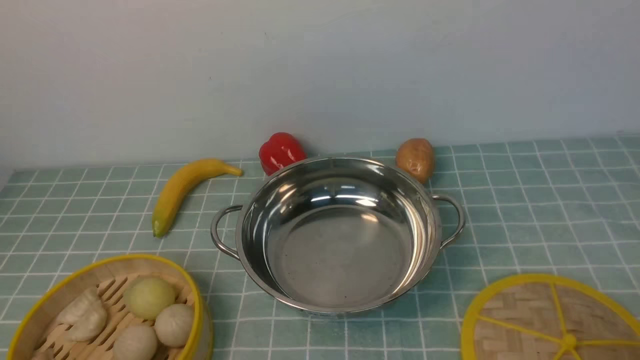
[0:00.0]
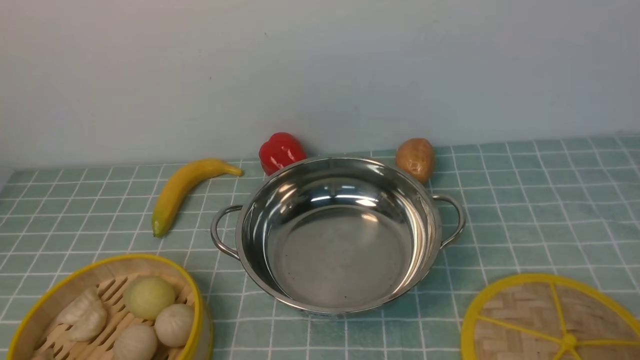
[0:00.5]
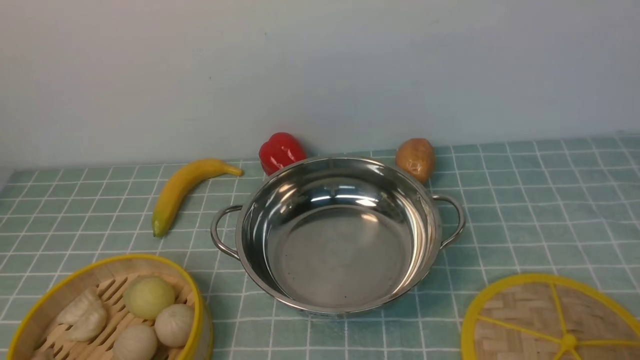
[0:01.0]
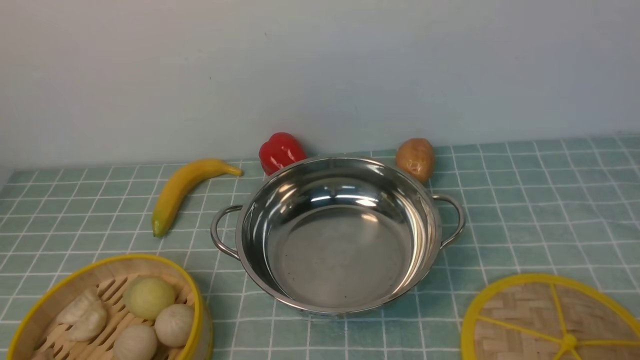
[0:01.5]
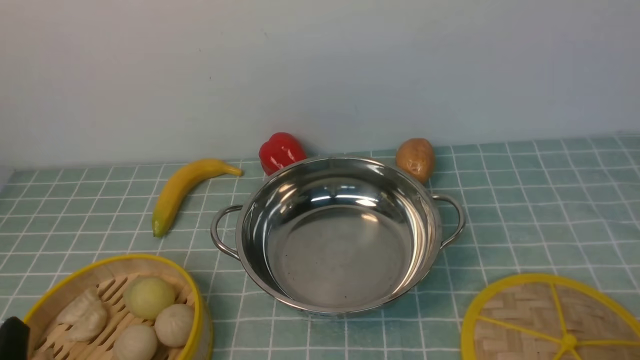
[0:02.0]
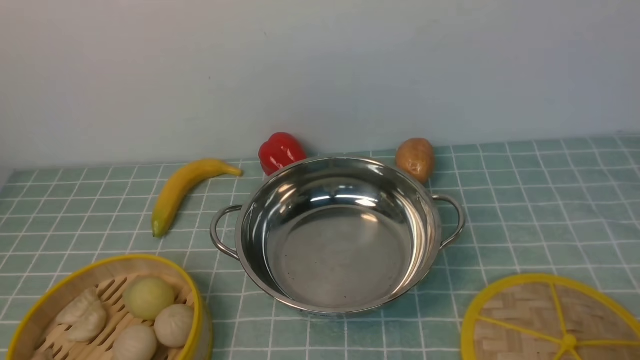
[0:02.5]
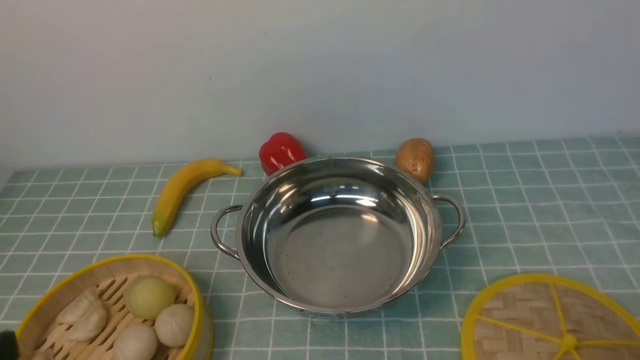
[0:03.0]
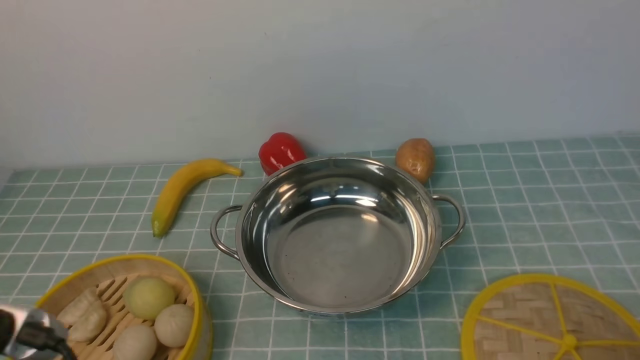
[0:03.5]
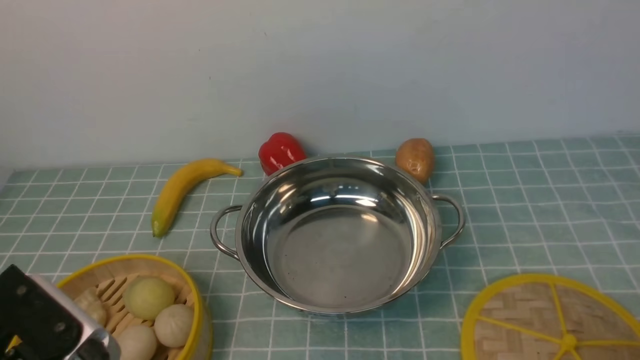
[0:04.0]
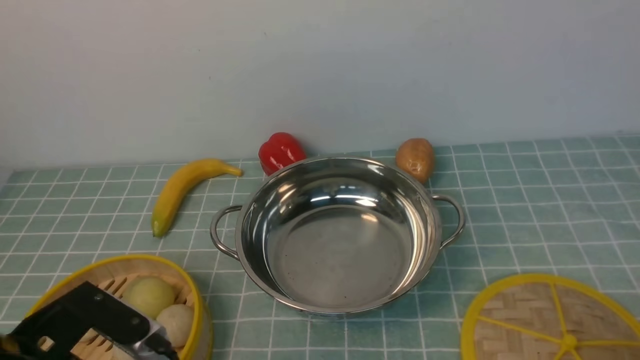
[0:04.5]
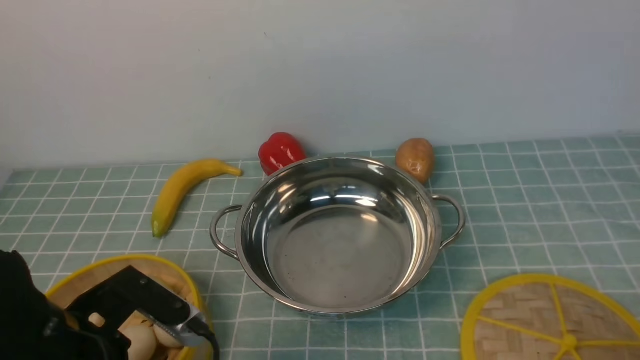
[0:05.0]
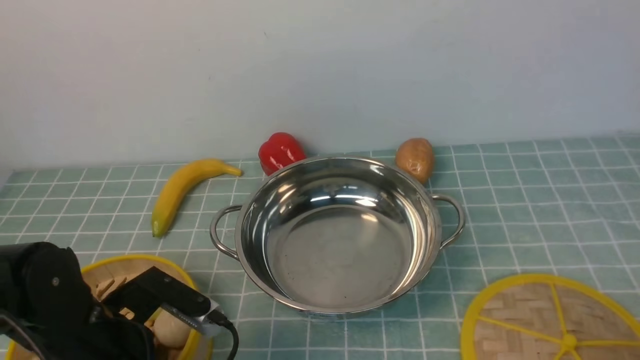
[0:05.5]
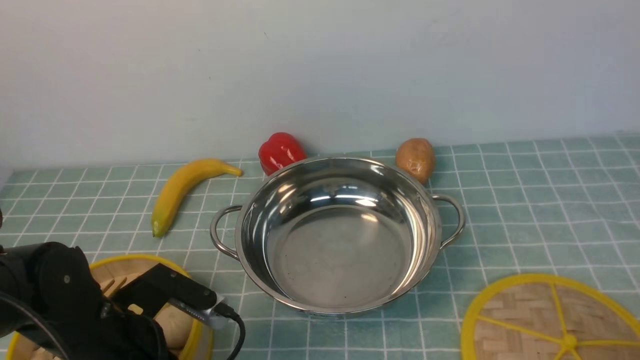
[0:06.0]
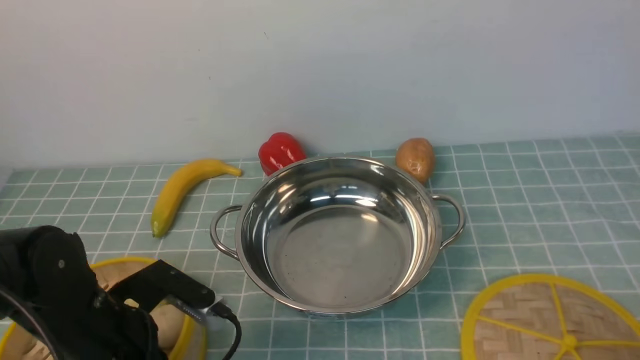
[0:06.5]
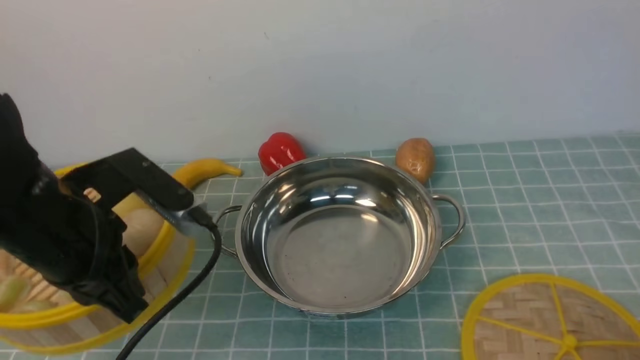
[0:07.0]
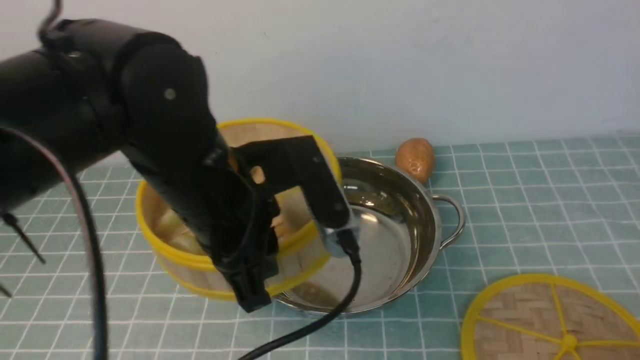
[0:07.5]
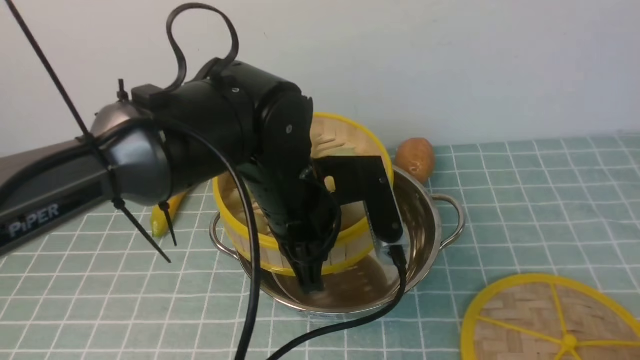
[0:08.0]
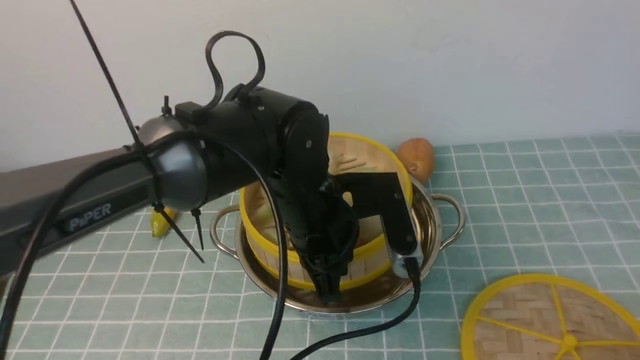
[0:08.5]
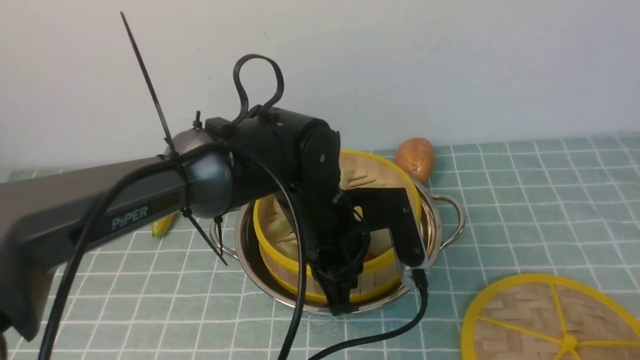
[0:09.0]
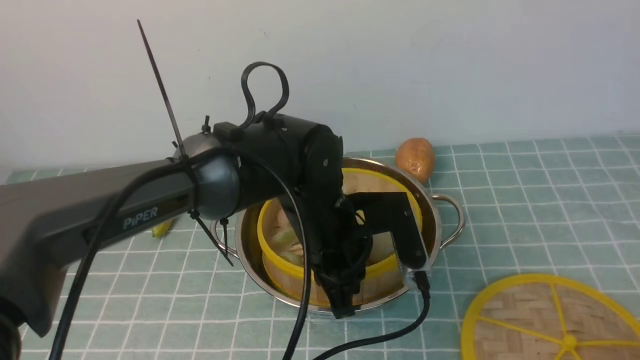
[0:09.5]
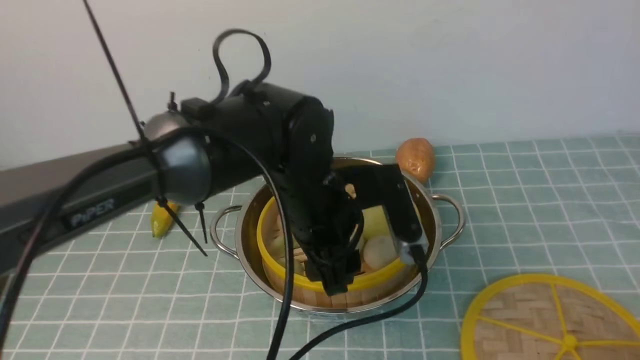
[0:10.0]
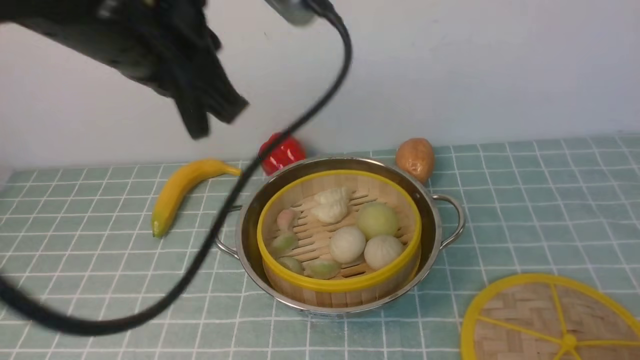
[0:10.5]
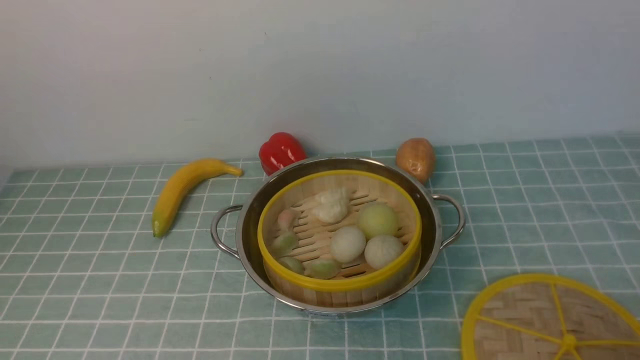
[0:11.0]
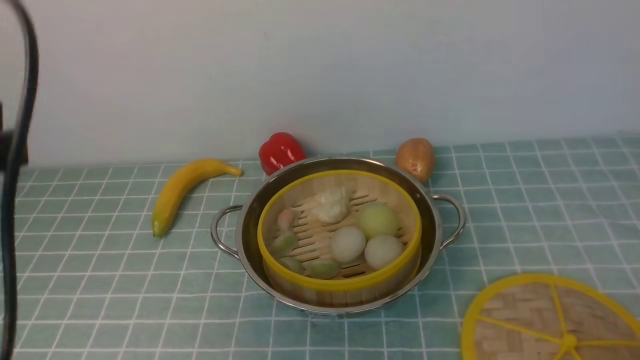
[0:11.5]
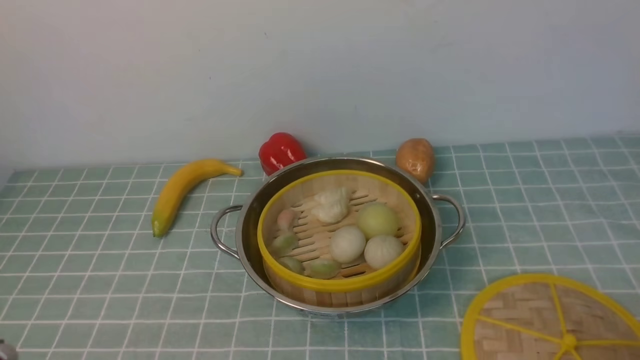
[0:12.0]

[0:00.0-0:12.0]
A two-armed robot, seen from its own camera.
Task of the whole recording: place the steamer in the pot on the blue tablecloth, and put the lid on the steamer.
Step, 0:00.0 to 0:07.0: use the left arm to lift the steamer closest to it.
Step, 0:07.5 to 0:10.0: use the left arm to put the steamer into the iron steamer pot in the middle.
0:02.0 to 0:04.0: The left gripper moves upward, about 10 cm.
0:04.0 to 0:06.0: The left gripper goes approximately 15 cm downward and forward, and closes its fingers.
0:06.0 to 0:08.0: The left gripper goes approximately 20 cm to the right, upward and forward, and closes its fingers.
0:08.0 to 0:10.0: The left gripper opens up.
0:10.0 to 0:12.0: The left gripper shifts approximately 35 cm to the left and backward, goes upward and returns, about 30 cm each way, and closes its fingers.

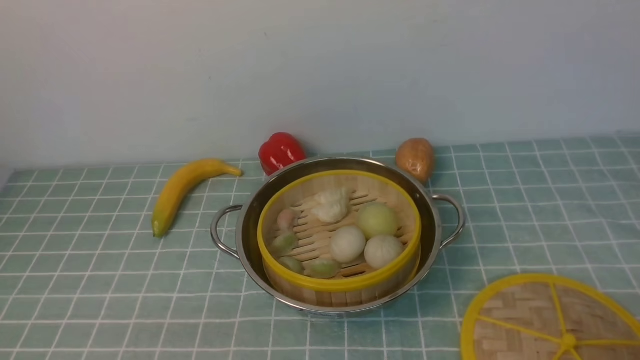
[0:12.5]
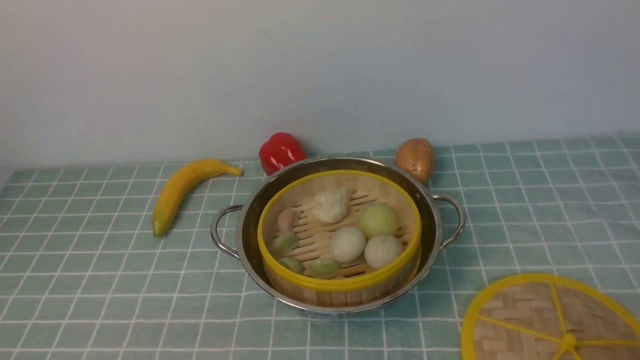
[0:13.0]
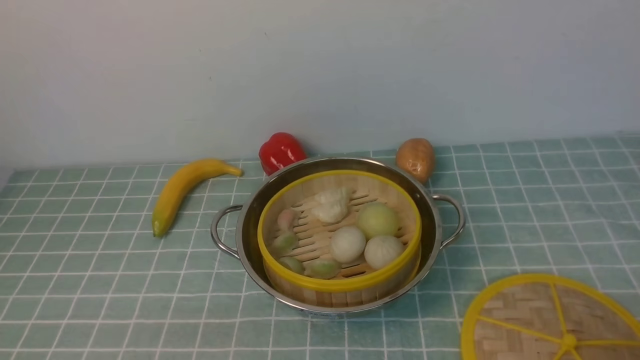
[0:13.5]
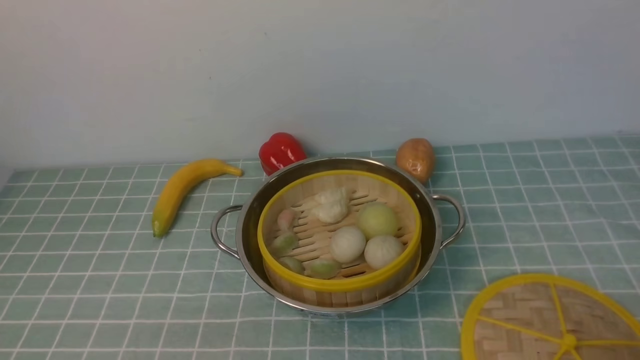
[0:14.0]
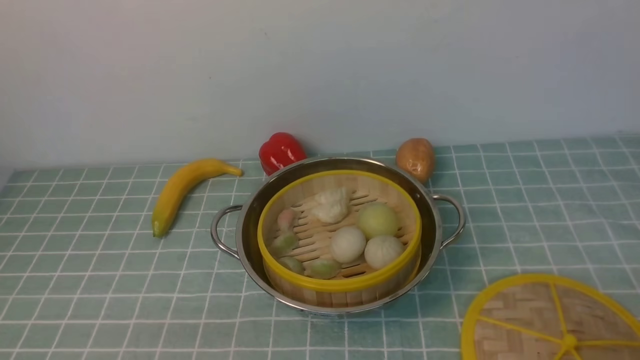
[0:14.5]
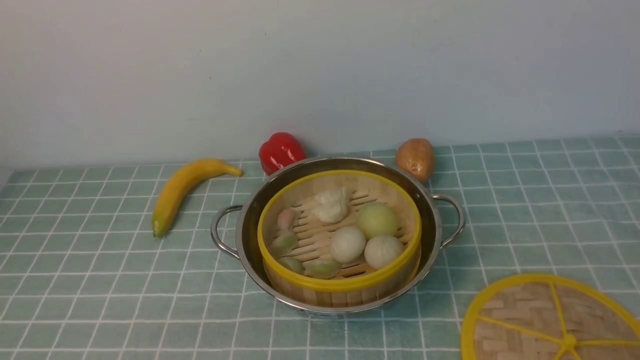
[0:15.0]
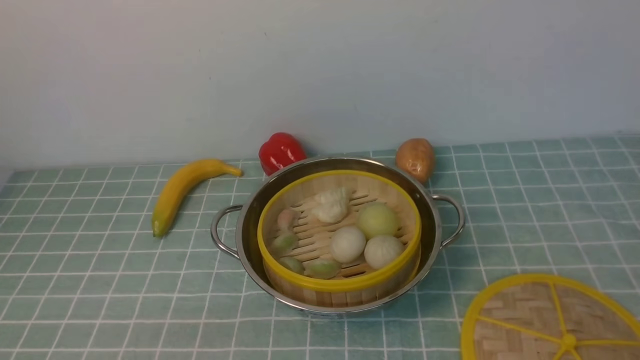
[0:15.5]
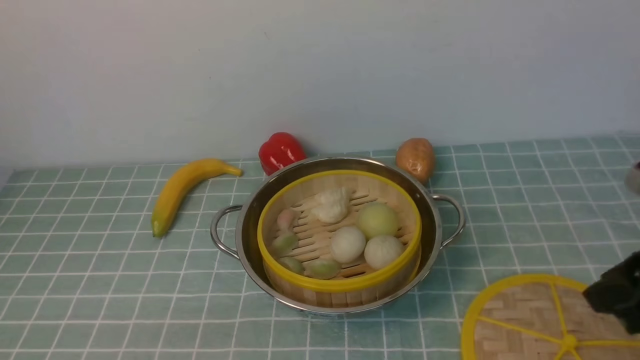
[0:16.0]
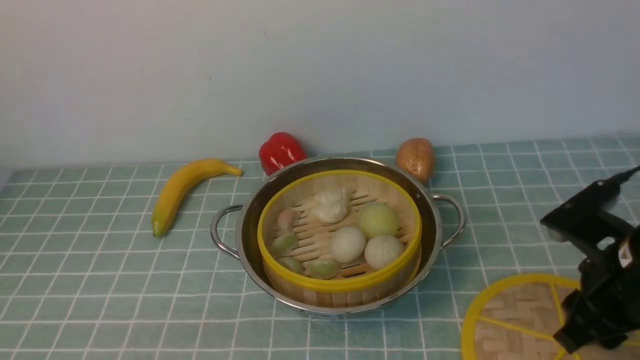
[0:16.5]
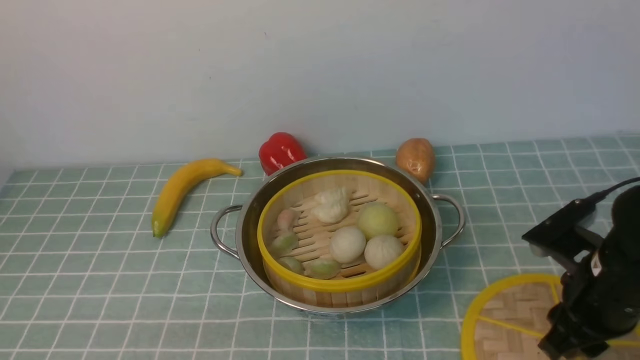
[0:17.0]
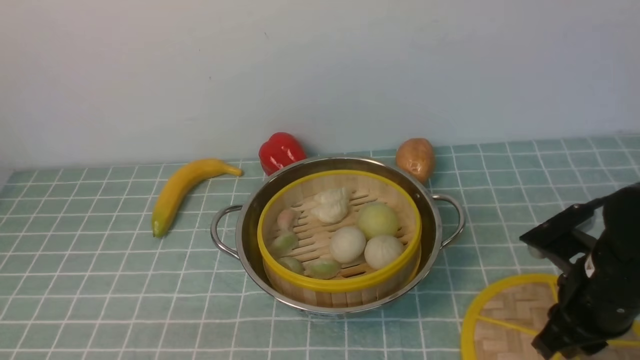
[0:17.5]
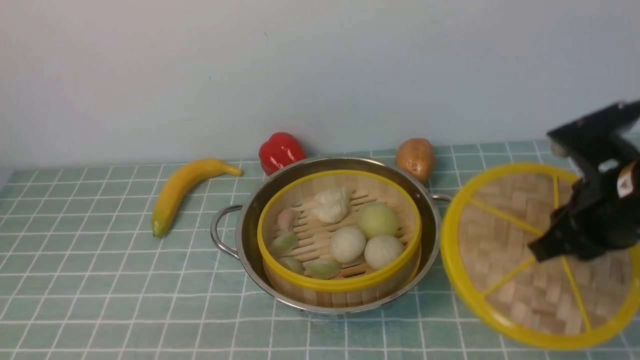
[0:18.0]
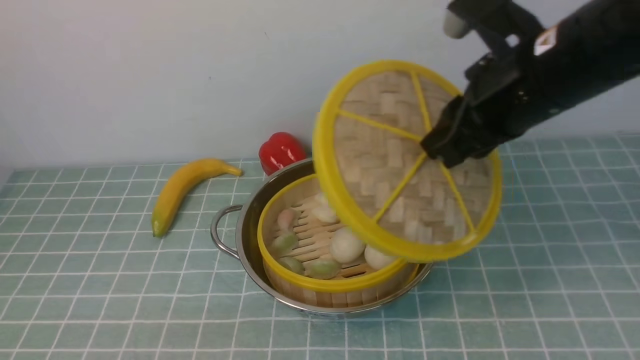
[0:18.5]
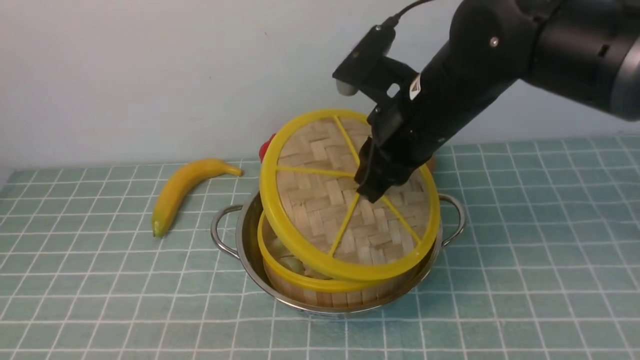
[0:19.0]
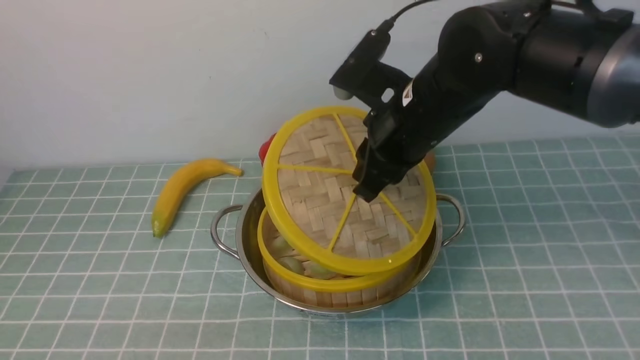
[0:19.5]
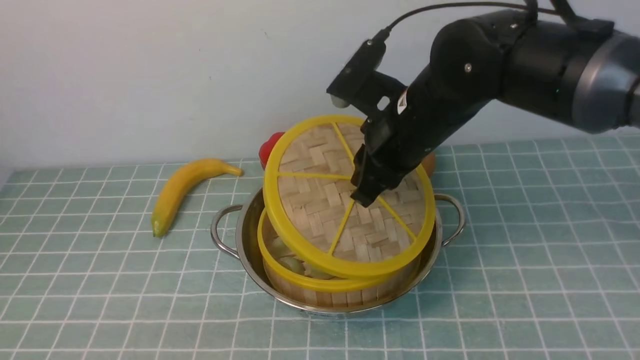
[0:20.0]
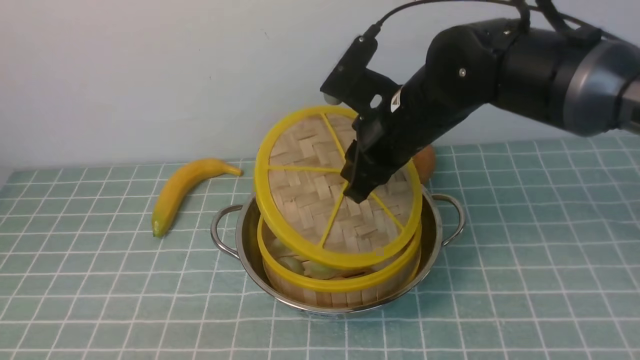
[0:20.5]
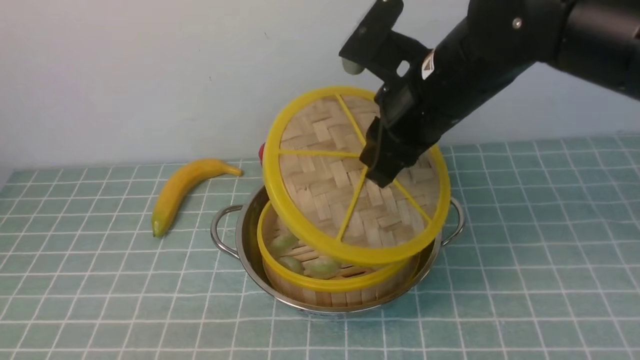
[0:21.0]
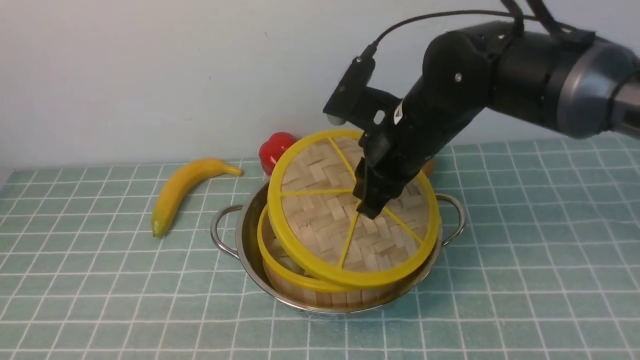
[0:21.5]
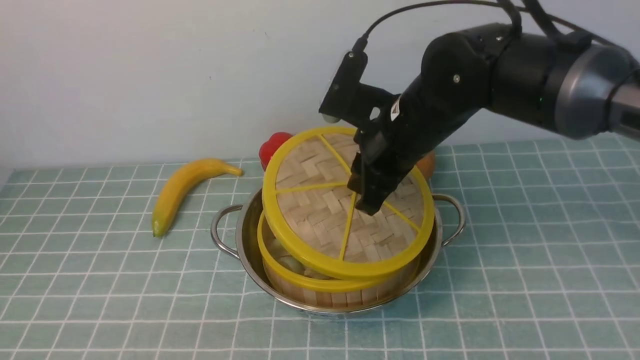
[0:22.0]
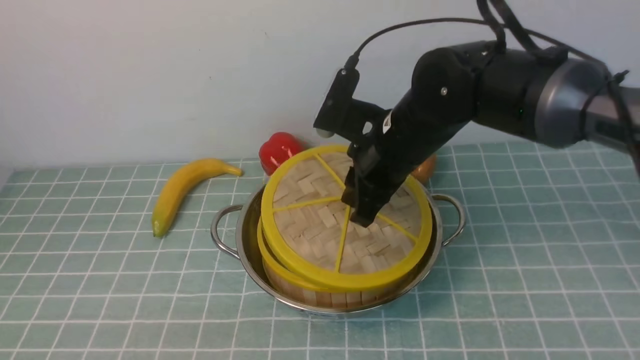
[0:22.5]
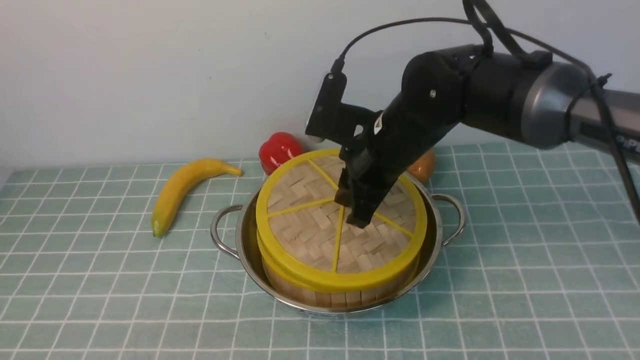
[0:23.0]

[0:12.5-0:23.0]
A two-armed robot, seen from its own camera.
Task of the whole recording: place the steamer in the pot on the blue tablecloth, and put the lid on the steamer.
Step, 0:12.5 to 0:18.0: use the right arm to lift the lid of the steamer.
0:14.5 to 0:16.5: The right gripper moves forward, some 15 cm.
0:16.5 to 0:19.0: The right gripper moves to the left, forward and upward, approximately 20 cm, and closes.
0:19.0 to 0:21.0: There are only small adjustments of the grippers.
0:21.0 to 0:23.0: The right gripper is displaced downward by roughly 5 cm.
